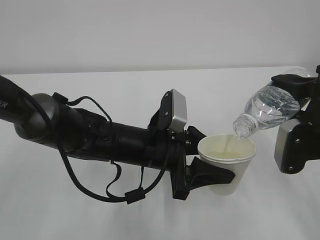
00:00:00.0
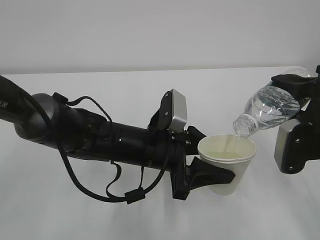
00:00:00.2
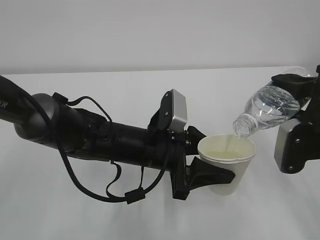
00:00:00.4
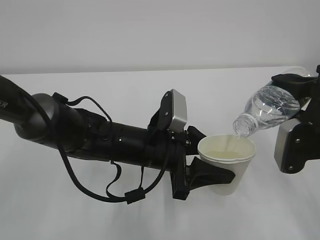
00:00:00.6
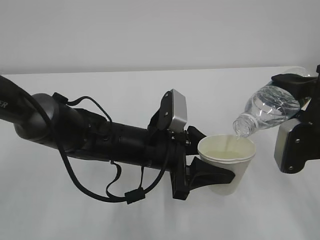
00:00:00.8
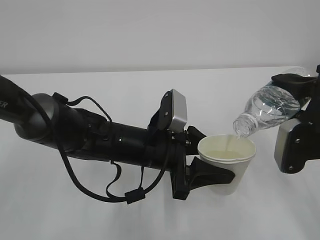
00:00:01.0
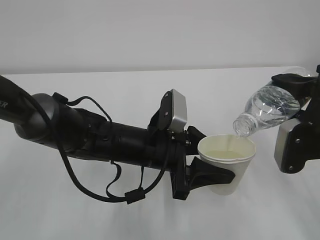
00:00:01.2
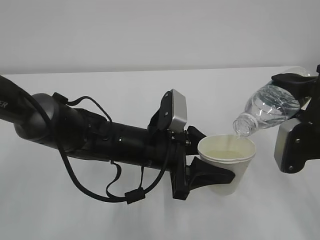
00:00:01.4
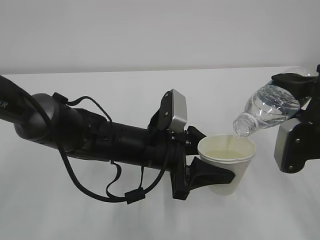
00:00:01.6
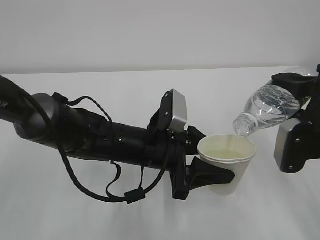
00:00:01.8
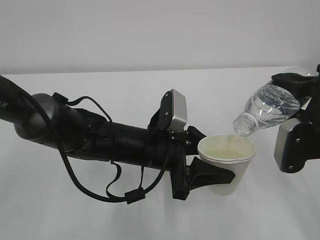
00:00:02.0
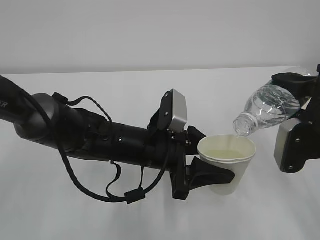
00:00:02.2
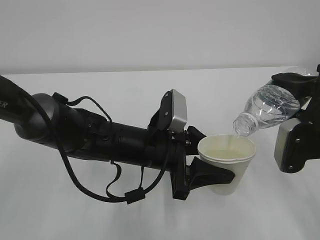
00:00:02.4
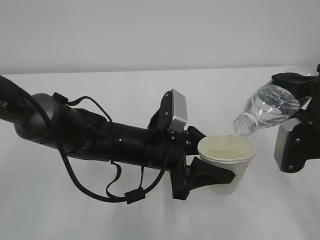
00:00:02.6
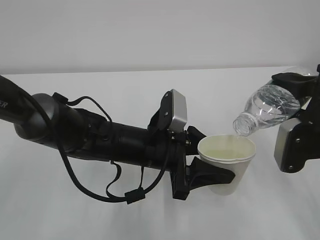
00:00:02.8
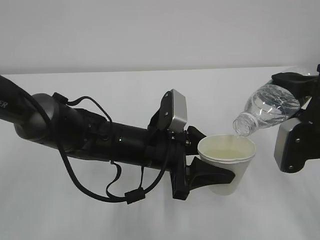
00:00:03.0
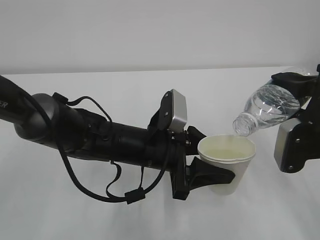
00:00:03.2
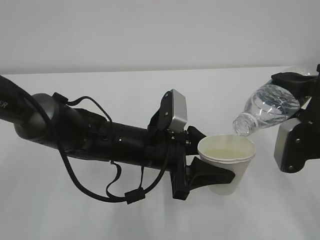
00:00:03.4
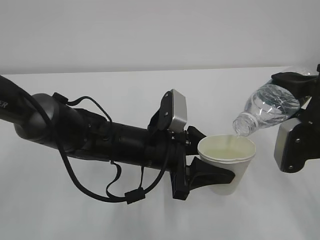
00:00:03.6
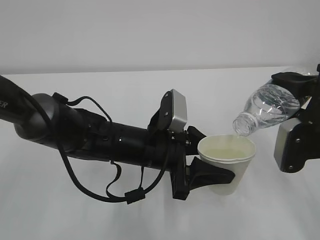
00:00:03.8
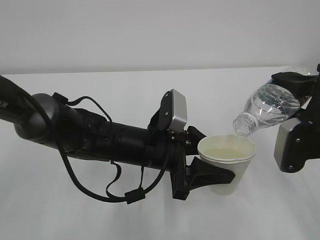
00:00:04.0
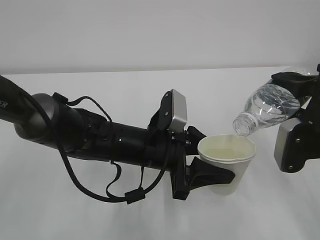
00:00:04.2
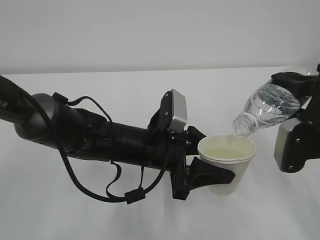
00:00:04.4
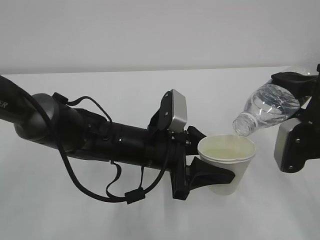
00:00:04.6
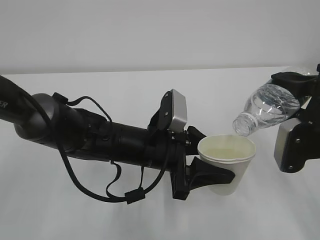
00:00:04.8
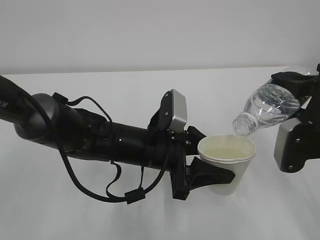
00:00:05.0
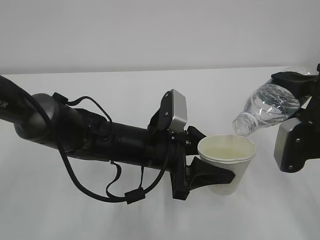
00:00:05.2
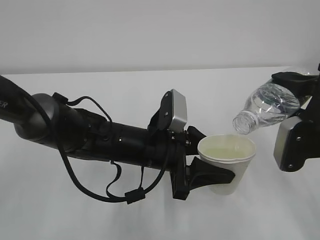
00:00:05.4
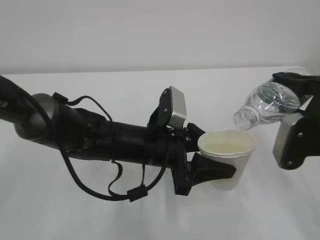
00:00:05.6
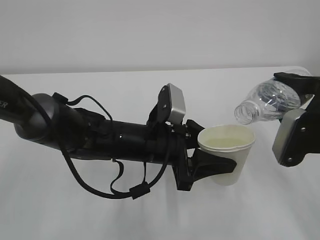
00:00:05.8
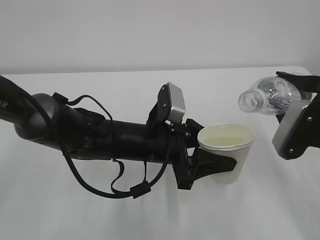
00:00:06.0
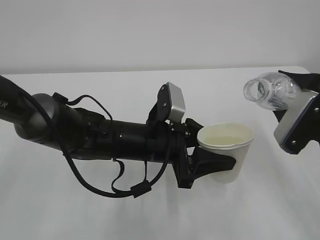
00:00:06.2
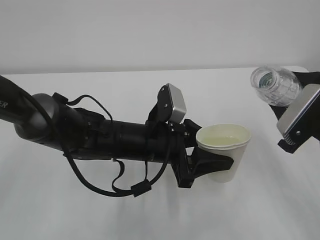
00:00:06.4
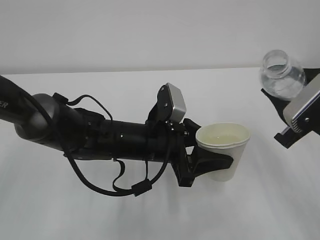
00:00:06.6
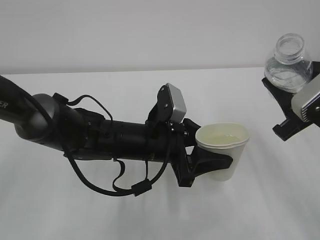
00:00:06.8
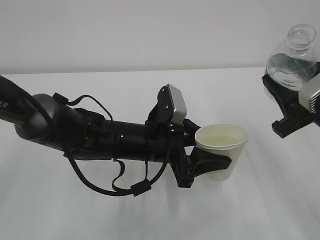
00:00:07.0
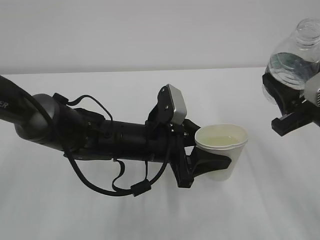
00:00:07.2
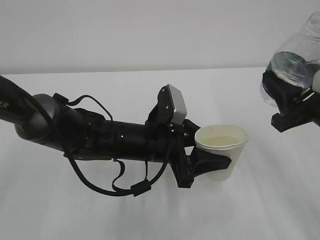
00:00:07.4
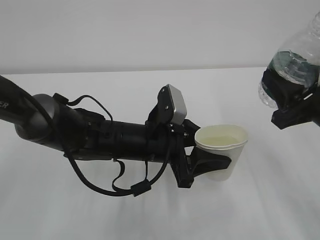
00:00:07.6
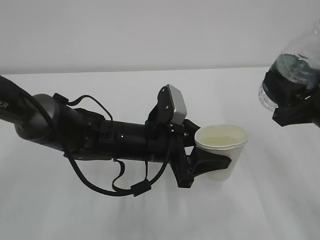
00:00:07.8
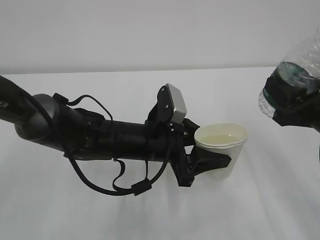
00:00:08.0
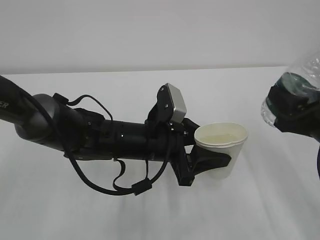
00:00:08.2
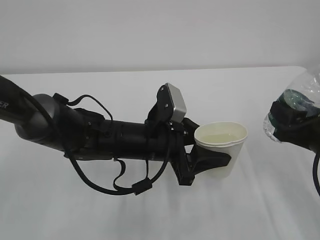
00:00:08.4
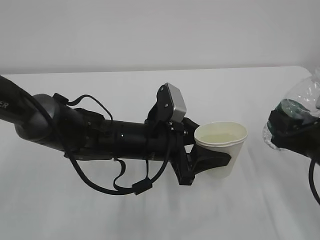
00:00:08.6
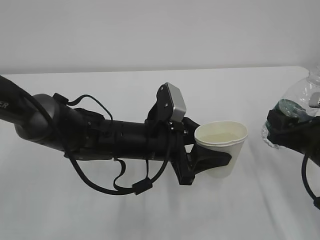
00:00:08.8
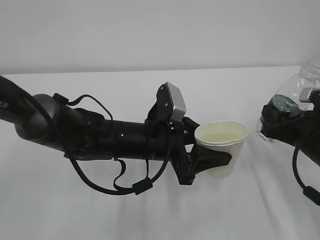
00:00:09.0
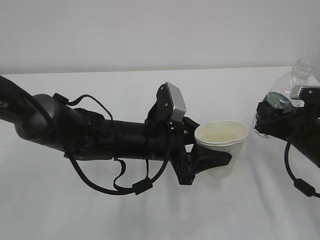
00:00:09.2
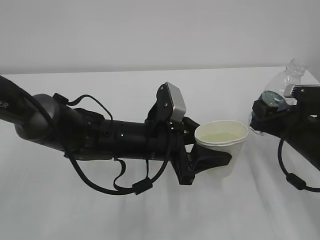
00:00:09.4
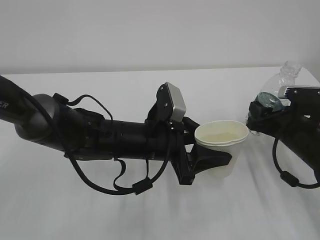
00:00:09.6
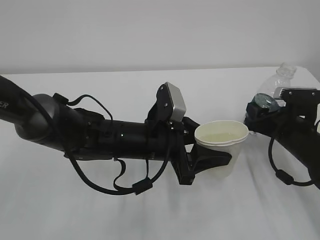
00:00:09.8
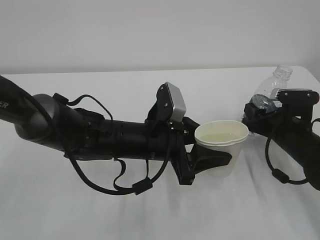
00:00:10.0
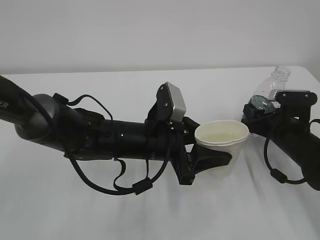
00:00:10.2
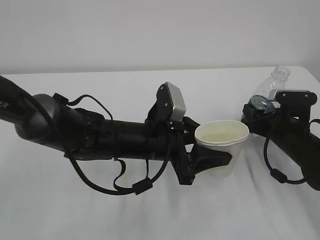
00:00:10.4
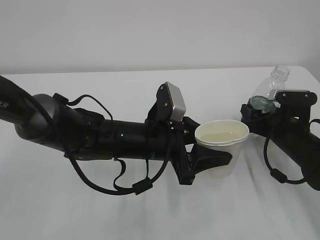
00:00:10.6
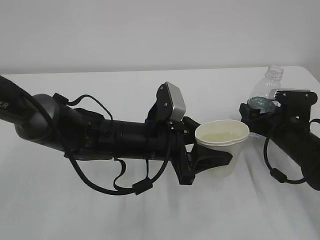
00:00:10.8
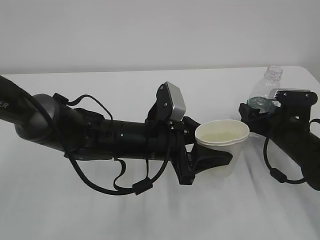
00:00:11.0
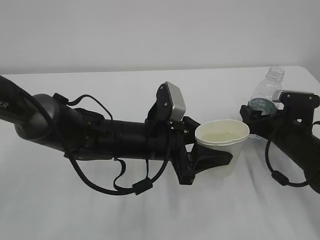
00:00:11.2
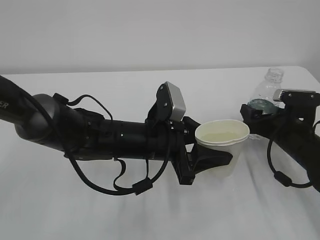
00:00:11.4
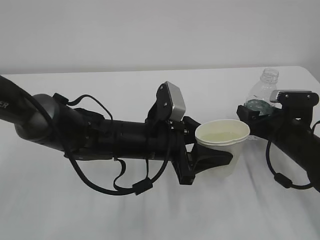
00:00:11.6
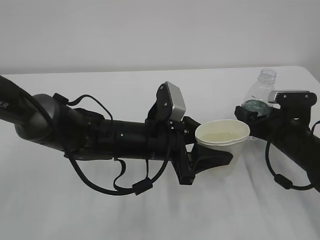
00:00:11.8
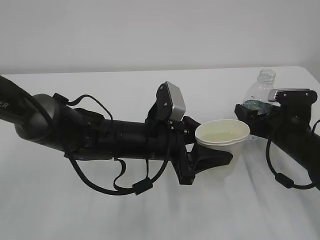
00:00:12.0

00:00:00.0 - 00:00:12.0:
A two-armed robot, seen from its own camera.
00:00:00.0 - 00:00:04.4: Neither gripper changes place.
00:00:07.6 - 00:00:09.0: The right gripper shifts some 10 cm downward.
00:00:09.0 - 00:00:10.4: The right gripper goes approximately 5 cm forward.
00:00:10.4 - 00:00:12.0: The right gripper opens its fingers.

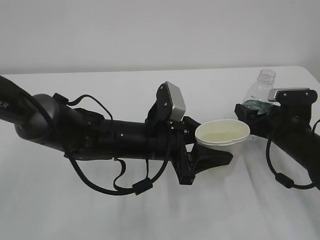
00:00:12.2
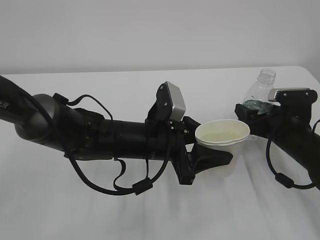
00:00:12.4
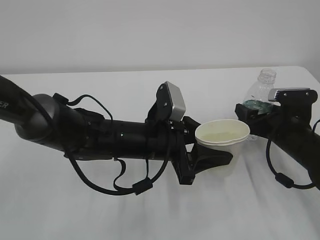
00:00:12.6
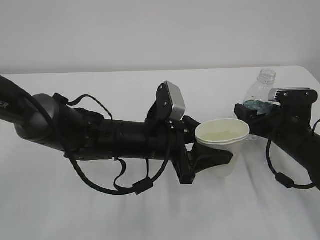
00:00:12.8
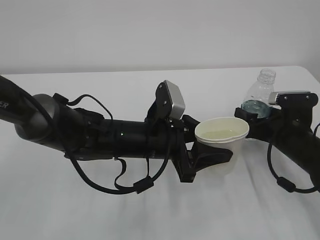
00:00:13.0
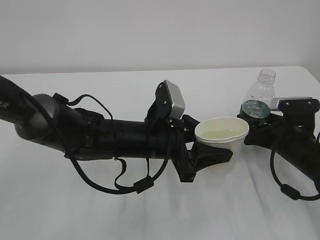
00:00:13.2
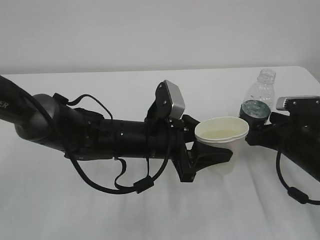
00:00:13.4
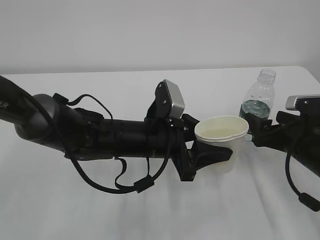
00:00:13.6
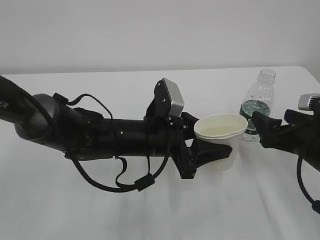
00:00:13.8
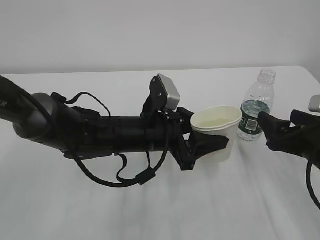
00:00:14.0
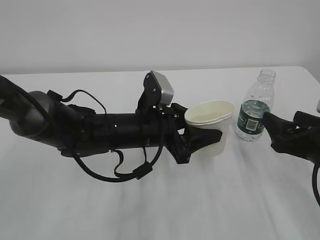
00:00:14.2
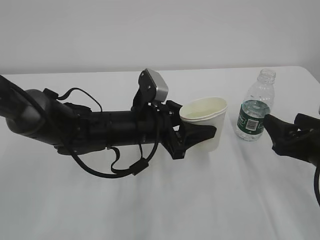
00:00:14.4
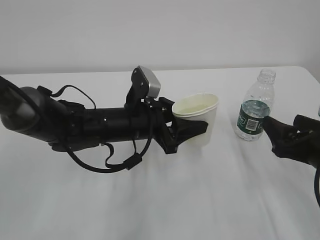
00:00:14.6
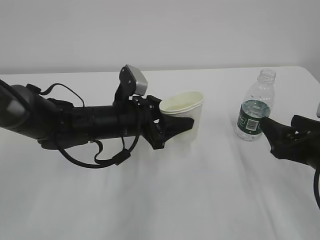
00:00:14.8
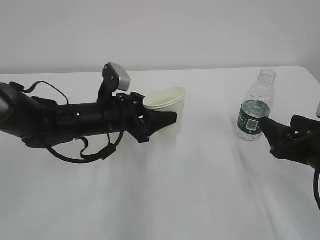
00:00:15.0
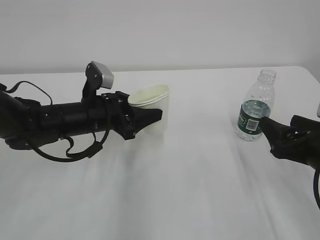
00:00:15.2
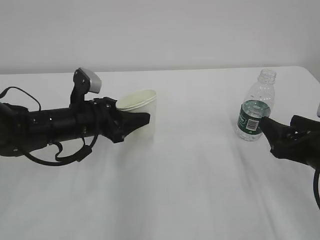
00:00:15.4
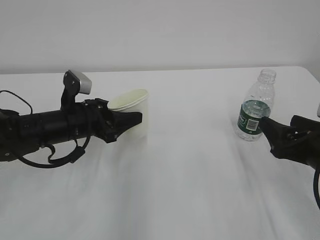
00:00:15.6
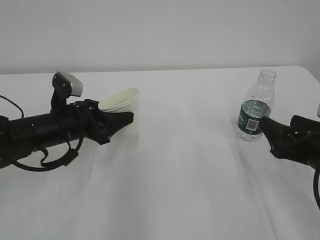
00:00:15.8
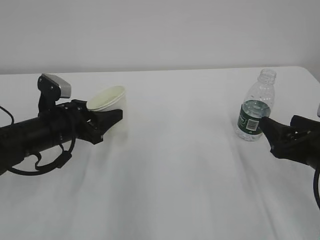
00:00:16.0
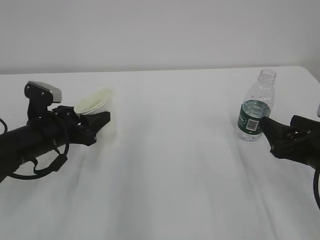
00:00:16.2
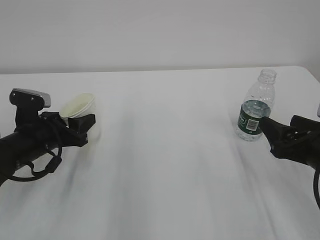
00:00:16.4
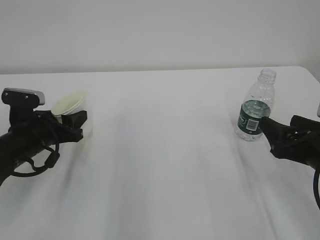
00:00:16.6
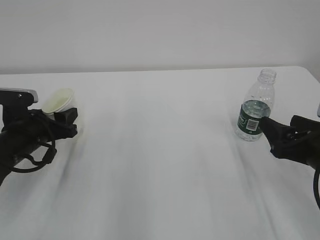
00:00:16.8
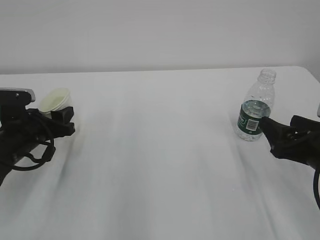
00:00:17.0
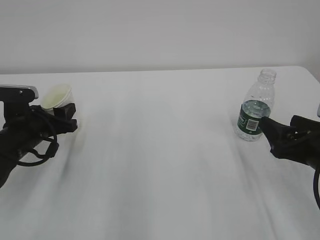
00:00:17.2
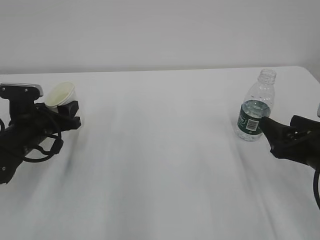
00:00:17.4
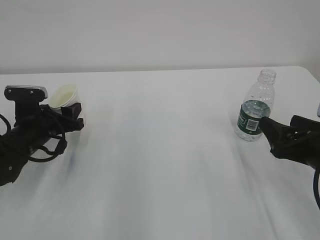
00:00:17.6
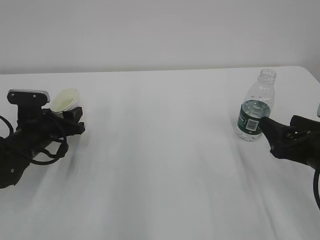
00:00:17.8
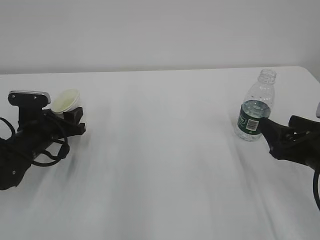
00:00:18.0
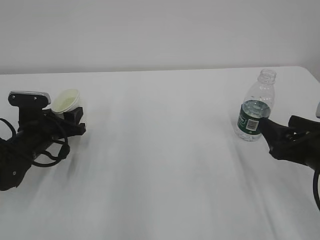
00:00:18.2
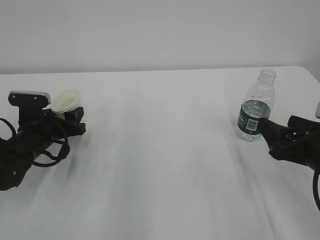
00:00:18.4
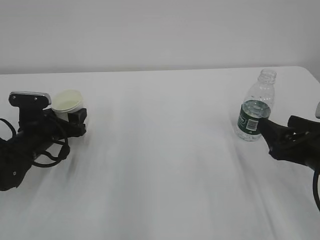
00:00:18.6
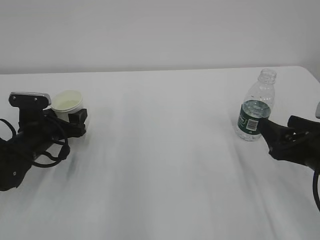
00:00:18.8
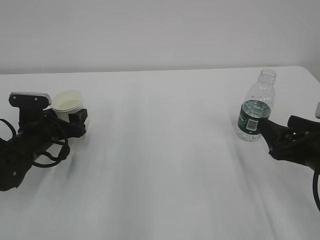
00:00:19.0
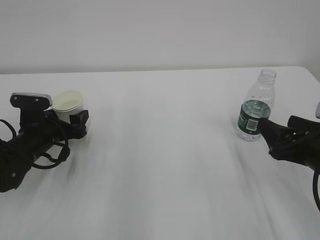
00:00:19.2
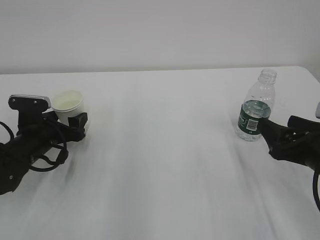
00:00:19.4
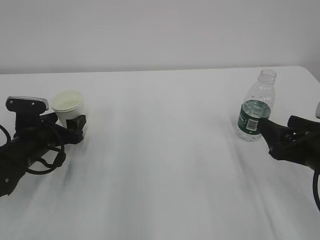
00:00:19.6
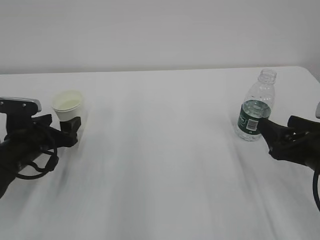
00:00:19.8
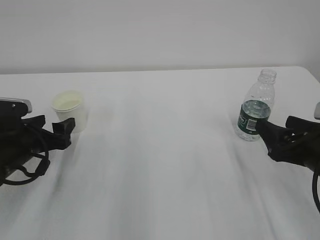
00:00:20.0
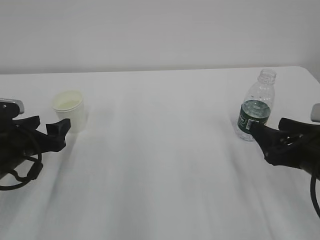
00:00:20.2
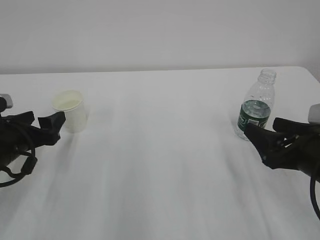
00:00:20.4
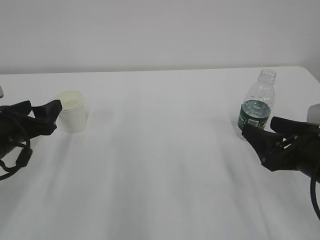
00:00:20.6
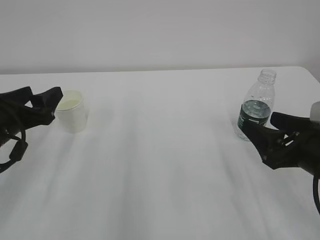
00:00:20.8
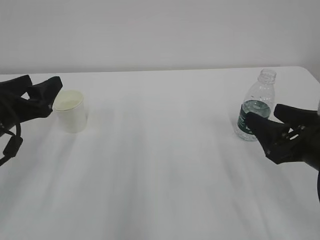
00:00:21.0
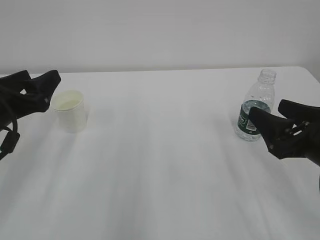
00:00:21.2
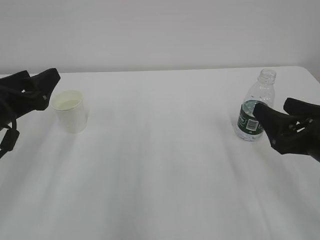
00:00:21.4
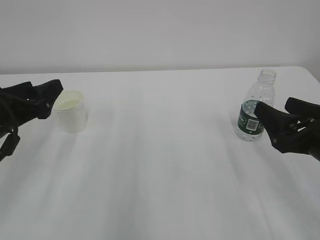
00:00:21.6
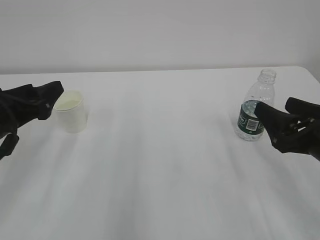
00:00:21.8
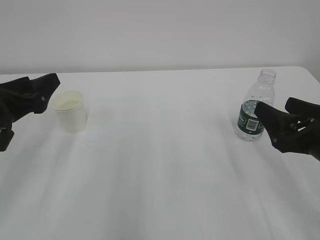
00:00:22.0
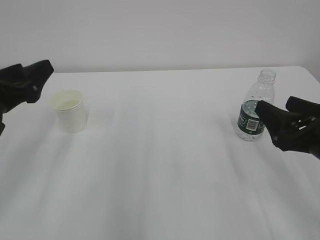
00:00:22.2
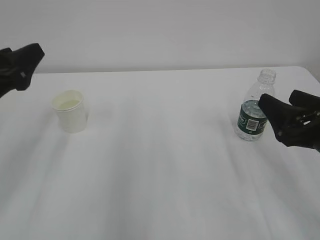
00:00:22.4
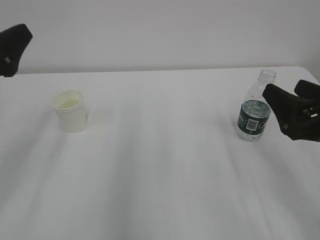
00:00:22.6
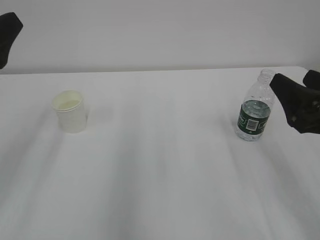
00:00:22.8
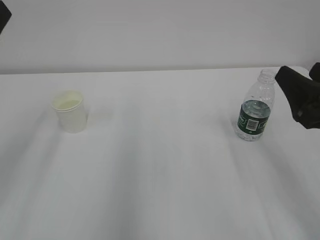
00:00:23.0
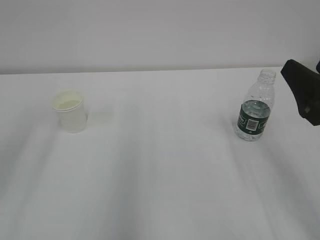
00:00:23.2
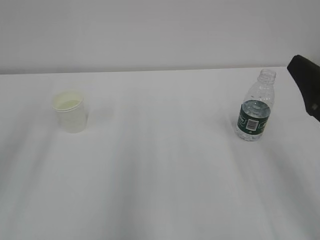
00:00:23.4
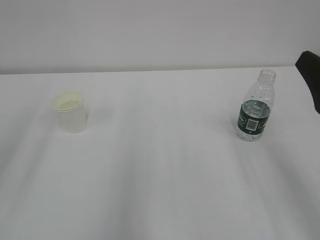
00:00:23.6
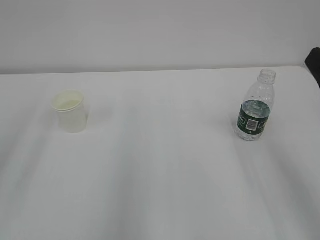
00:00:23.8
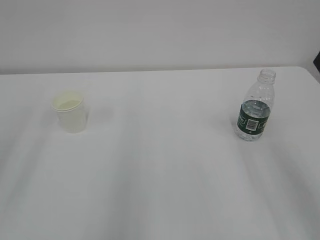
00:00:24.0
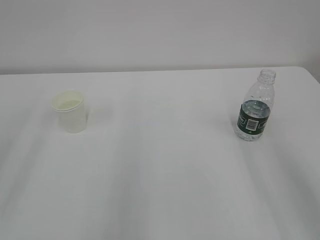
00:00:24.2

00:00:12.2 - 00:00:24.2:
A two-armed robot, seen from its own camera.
00:00:12.2 - 00:00:13.8: The right gripper travels backward by approximately 5 cm.
00:00:13.8 - 00:00:15.2: The left gripper shifts about 10 cm to the left and forward.
00:00:15.2 - 00:00:16.6: The left gripper is displaced to the left by about 10 cm.
00:00:16.6 - 00:00:18.2: The grippers stay close to where they were, moving slightly.
00:00:18.2 - 00:00:19.8: The left gripper opens its fingers.
00:00:19.8 - 00:00:21.2: The left gripper shifts roughly 10 cm upward.
00:00:21.2 - 00:00:22.6: The left gripper travels upward by some 5 cm.
00:00:22.6 - 00:00:24.2: The left gripper heads backward and upward, covering approximately 10 cm. The right gripper is displaced upward and backward by approximately 10 cm.
